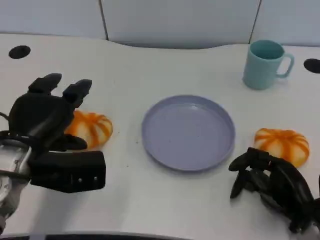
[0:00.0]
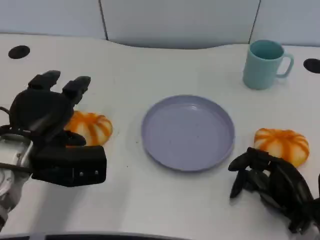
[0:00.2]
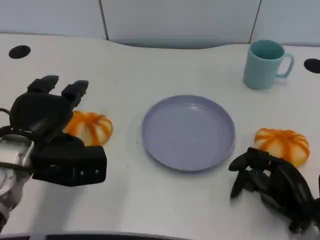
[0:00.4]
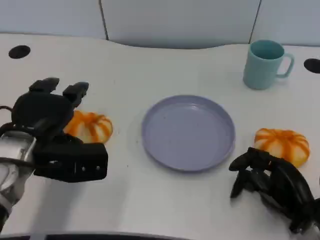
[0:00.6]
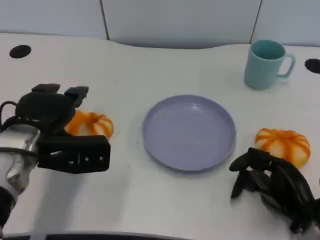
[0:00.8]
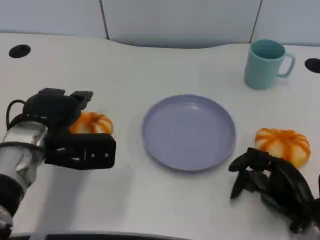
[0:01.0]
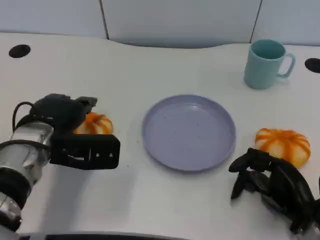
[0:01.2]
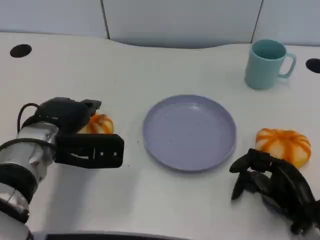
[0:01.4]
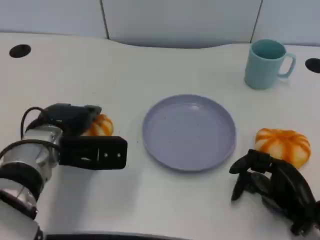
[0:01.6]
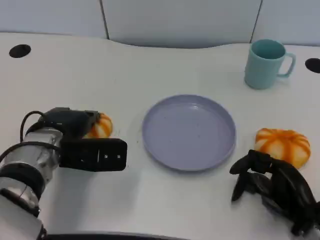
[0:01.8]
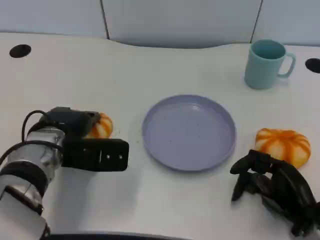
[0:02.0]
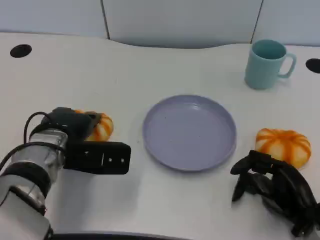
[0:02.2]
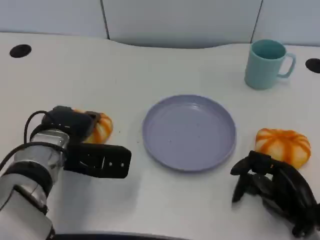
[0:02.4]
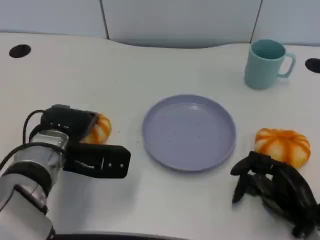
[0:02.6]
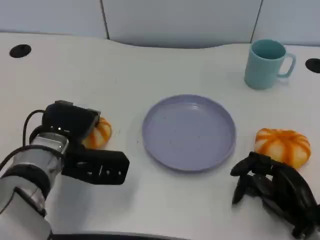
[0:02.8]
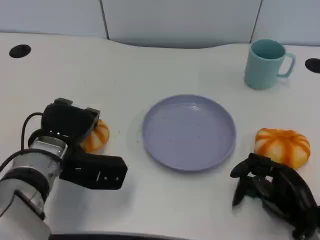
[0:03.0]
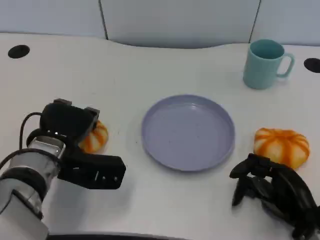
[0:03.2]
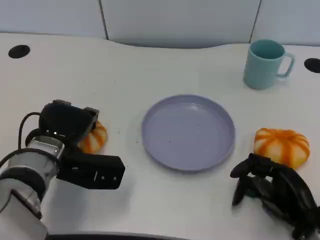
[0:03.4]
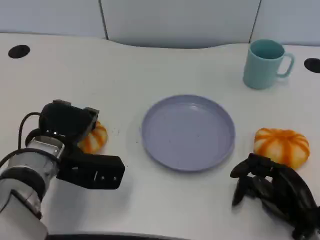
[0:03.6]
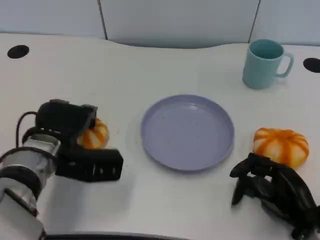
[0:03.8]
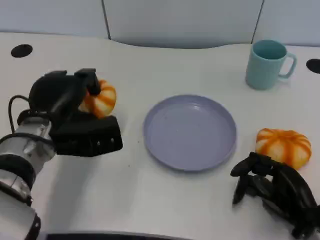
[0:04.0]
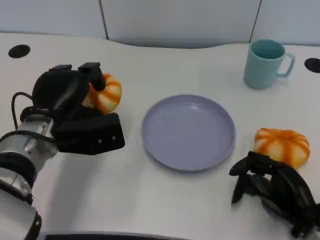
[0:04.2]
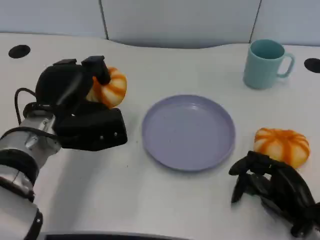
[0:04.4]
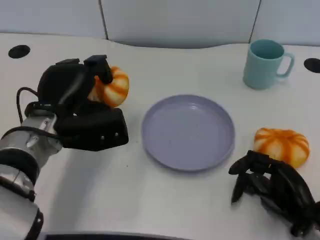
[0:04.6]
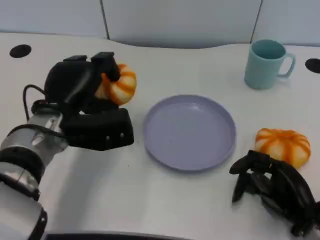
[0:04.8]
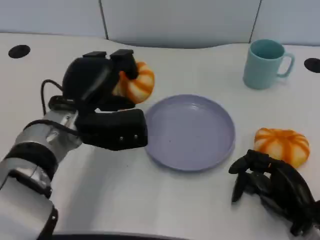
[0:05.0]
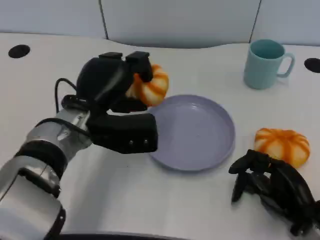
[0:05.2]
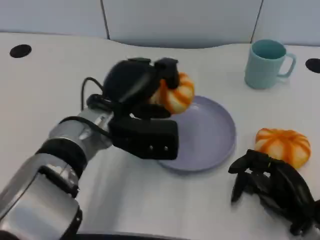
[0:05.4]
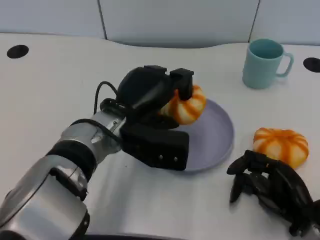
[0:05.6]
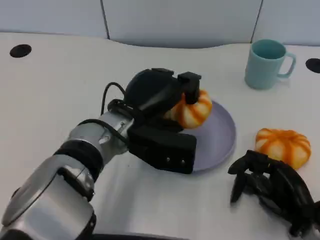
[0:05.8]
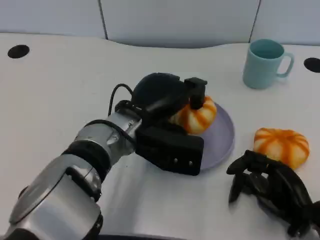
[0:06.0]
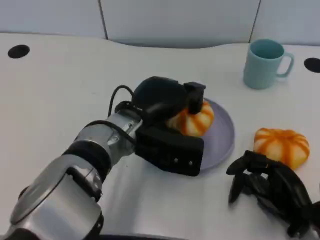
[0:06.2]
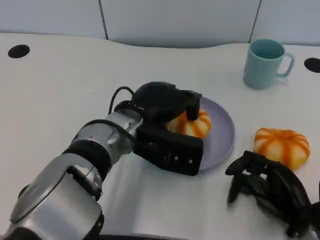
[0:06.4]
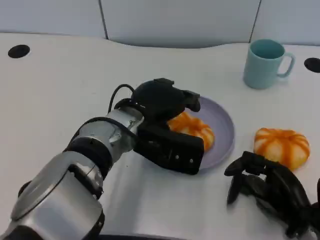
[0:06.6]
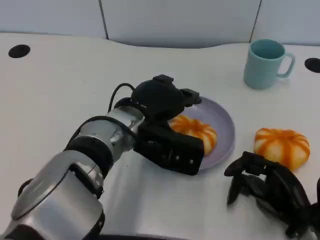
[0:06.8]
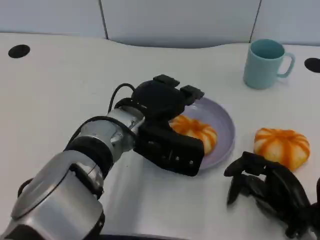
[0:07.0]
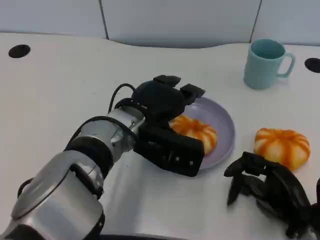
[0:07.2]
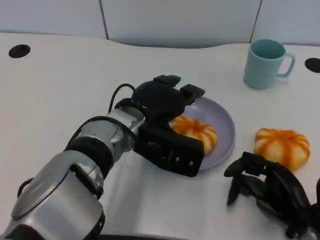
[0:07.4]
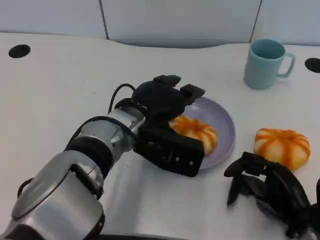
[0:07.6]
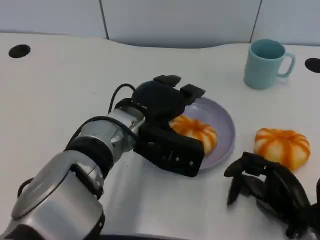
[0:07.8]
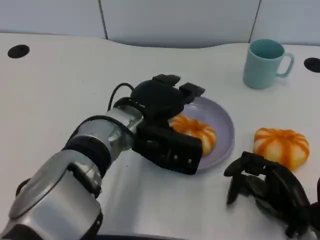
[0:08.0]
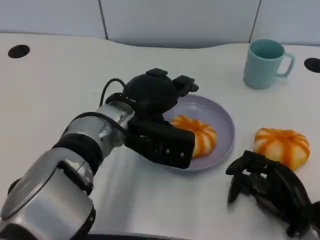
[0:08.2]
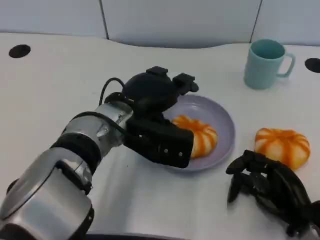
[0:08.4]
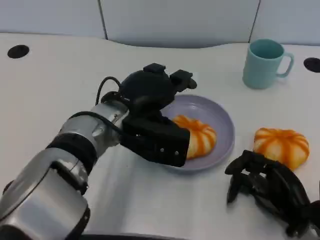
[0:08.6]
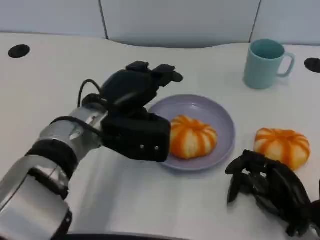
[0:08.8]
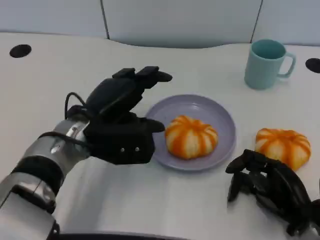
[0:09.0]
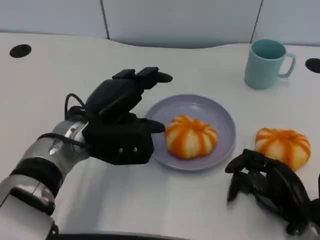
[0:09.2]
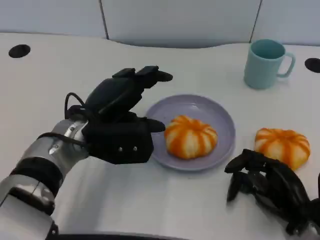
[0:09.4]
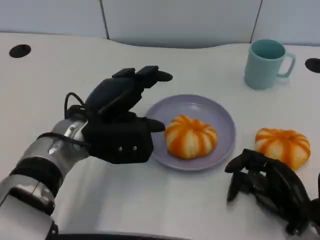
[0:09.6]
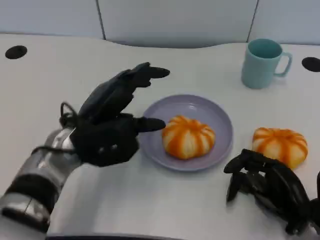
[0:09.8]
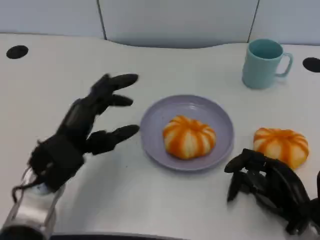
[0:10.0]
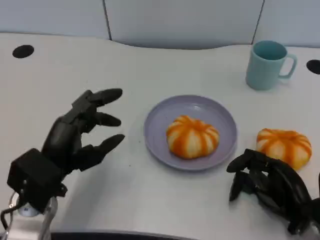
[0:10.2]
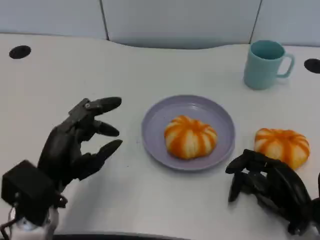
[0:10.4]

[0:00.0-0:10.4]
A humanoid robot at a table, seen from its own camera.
Task of the whole recording: Grasp the bread from the table and place it into the plate.
0:00.0 to 0:01.4: The left hand changes place by some 5 cm.
0:01.4 to 0:03.0: There are only small adjustments of the hands.
0:04.4 to 0:06.0: The left hand moves to the right, some 10 cm.
0:06.0 to 0:07.4: The hands stay close to where they were, moving slightly.
0:07.4 to 0:09.0: The left hand goes about 5 cm to the left.
0:09.0 to 0:10.4: The left hand is displaced backward and to the left by about 10 cm.

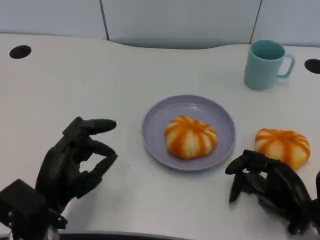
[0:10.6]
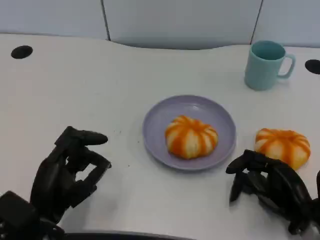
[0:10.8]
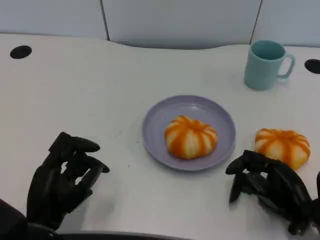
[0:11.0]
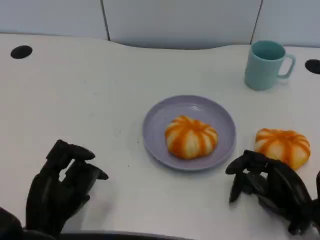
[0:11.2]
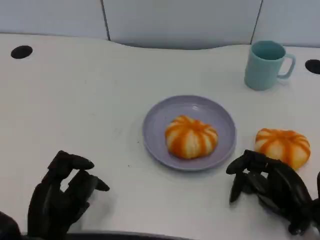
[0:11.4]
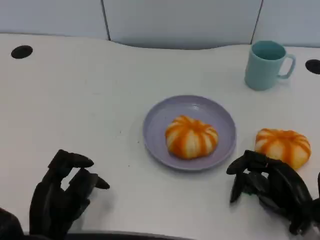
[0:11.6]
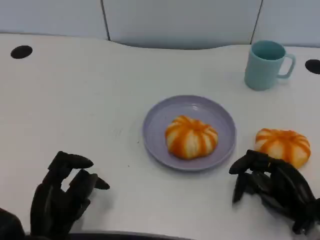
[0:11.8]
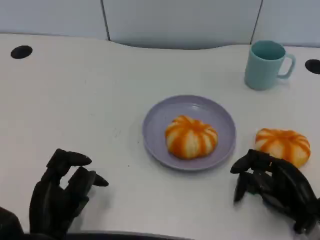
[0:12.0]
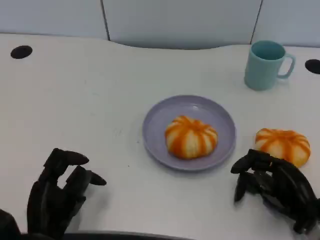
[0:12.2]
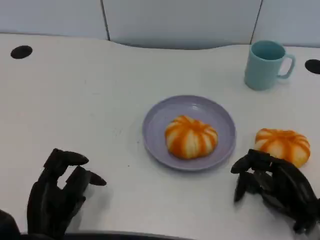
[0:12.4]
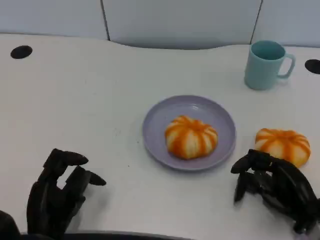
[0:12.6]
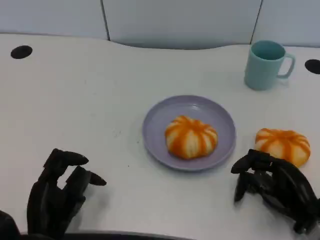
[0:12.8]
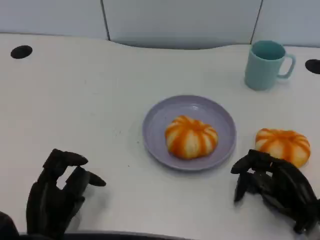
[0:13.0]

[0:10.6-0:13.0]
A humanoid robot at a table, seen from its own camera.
Task of the whole recording: Grasp the bread from the table and place it into the plate.
0:10.6 to 0:11.8: The left hand moves approximately 5 cm.
0:11.8 to 0:13.0: The two hands keep their place.

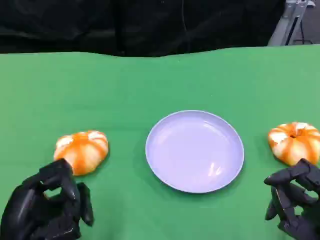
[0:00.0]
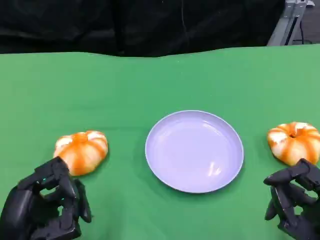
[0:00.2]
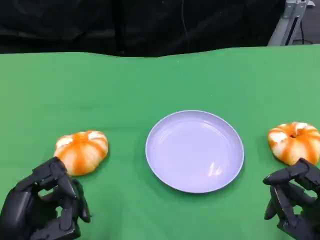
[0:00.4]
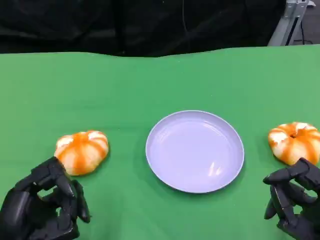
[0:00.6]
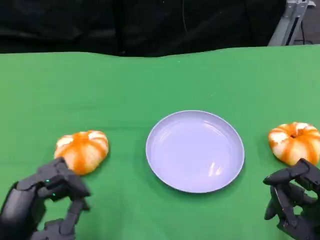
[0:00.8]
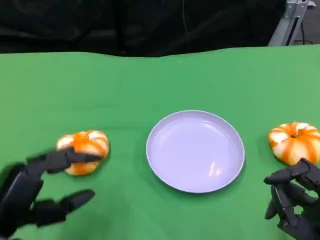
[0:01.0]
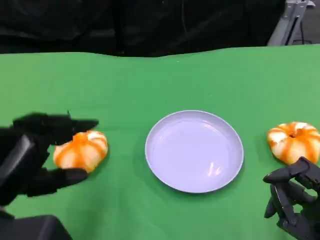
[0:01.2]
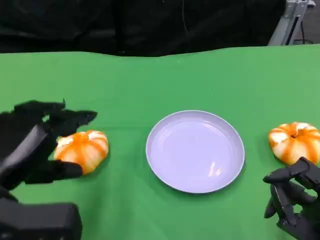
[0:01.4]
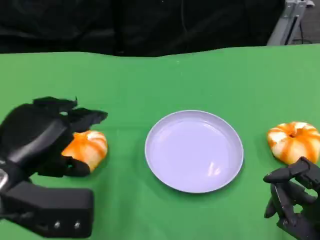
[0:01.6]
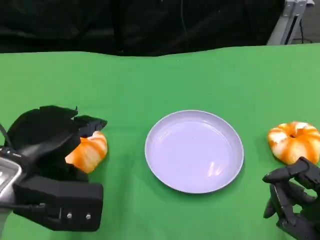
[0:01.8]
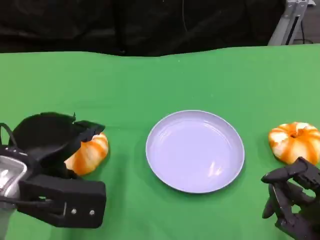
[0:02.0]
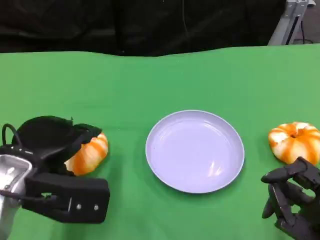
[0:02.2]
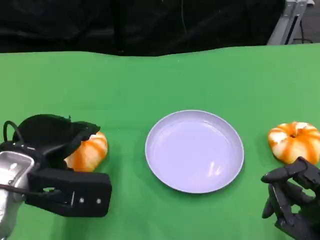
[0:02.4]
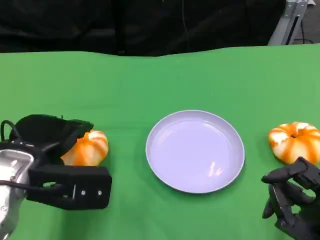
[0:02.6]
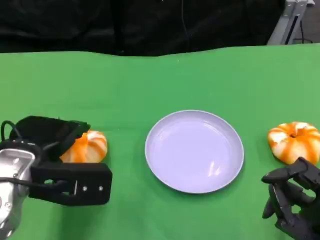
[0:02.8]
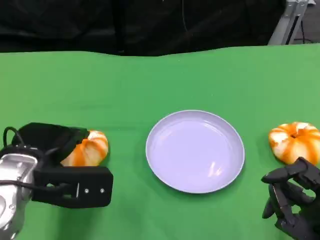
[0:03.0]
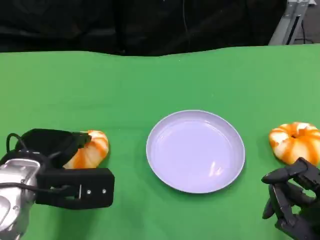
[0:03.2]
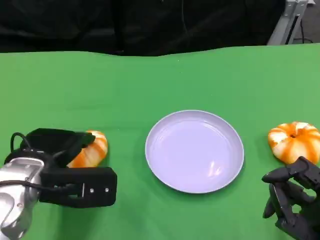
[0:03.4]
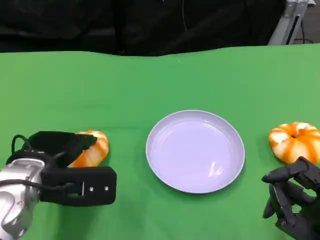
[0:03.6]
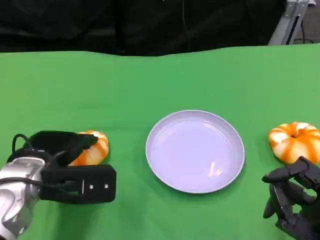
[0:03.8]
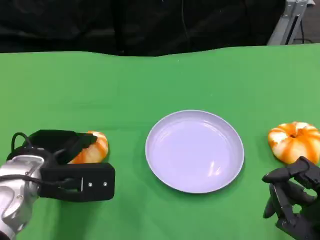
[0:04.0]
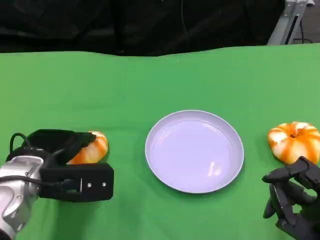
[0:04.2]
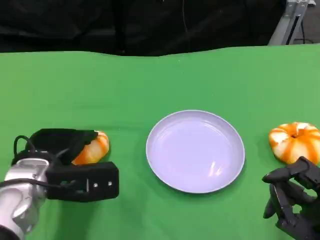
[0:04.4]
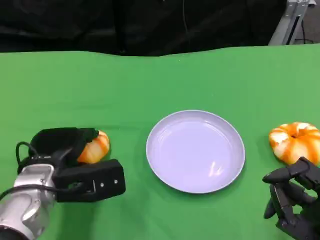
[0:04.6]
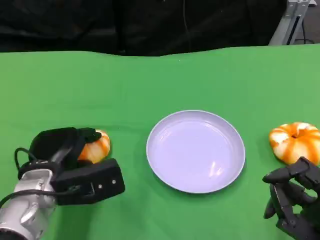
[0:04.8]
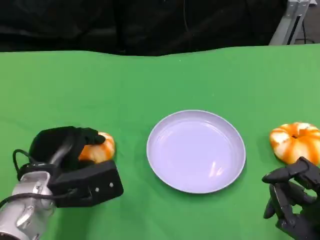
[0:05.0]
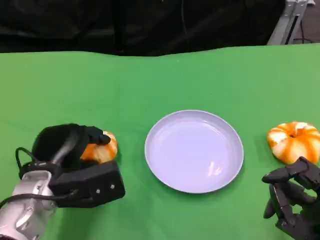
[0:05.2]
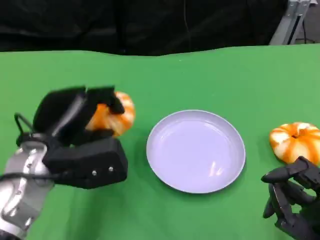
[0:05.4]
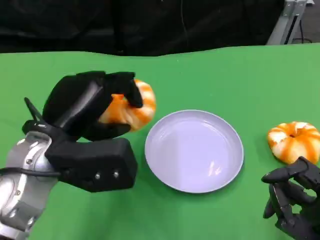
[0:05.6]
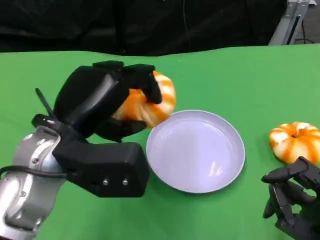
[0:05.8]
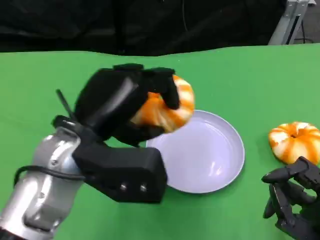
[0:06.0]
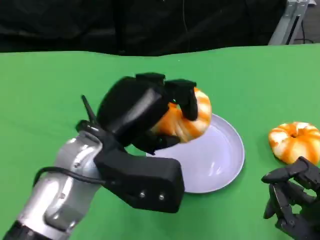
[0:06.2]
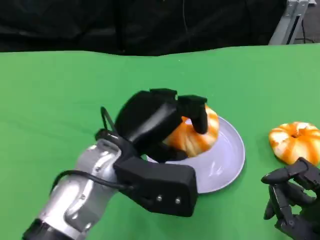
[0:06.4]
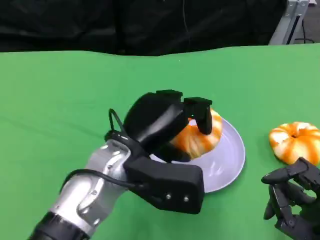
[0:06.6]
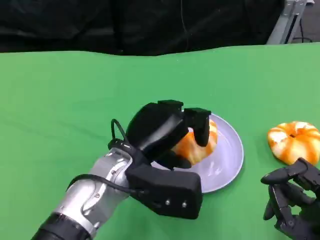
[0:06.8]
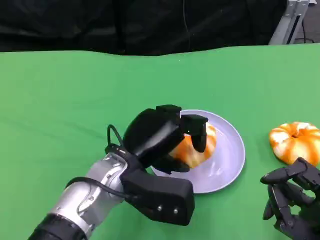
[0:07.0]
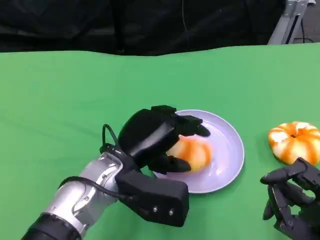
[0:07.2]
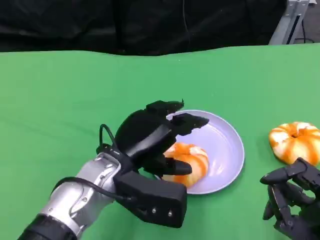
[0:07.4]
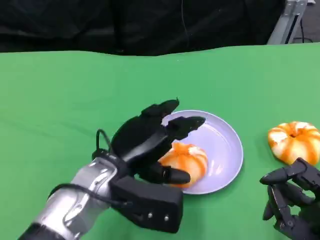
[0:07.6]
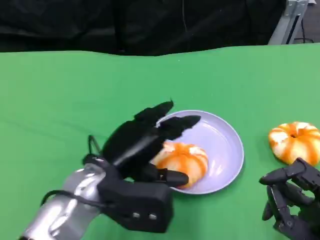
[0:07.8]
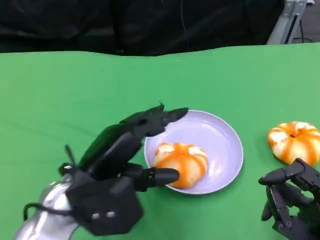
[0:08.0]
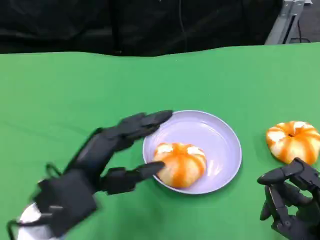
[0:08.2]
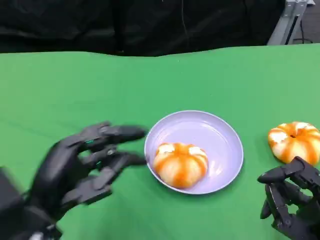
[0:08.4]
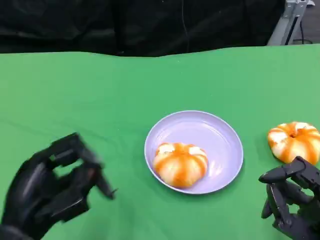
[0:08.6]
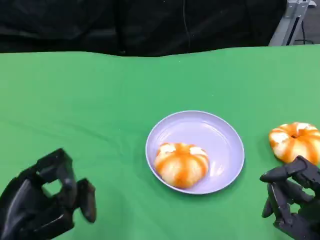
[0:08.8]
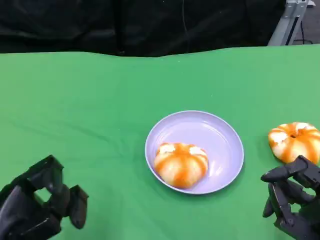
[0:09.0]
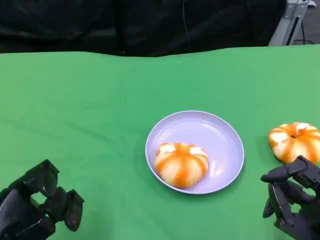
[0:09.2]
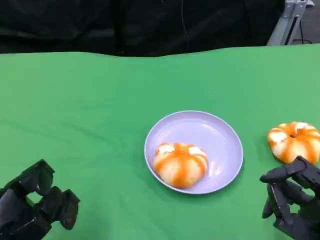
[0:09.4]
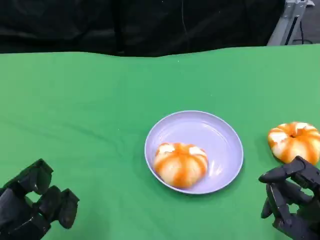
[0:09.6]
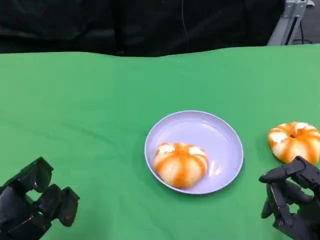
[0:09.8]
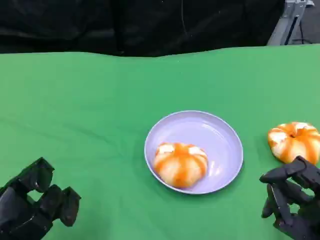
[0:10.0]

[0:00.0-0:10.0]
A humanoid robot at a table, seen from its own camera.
Task of the whole recording: Grasp the bread from the table and place it into the plate.
0:00.0 to 0:01.4: The left hand travels upward and forward by some 10 cm.
0:01.4 to 0:02.8: The left hand is displaced forward by roughly 5 cm.
0:02.8 to 0:04.2: There are only small adjustments of the hands.
0:04.2 to 0:05.8: The left hand moves upward, about 10 cm.
0:05.8 to 0:07.2: The left hand shifts roughly 10 cm downward and to the right.
0:07.2 to 0:08.6: The left hand moves to the left and backward, about 15 cm.
0:08.6 to 0:10.0: The left hand shifts by approximately 5 cm.
